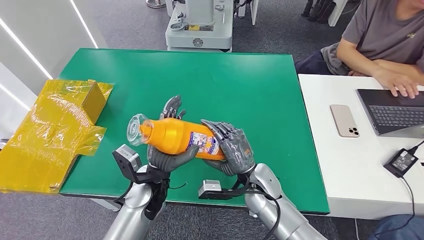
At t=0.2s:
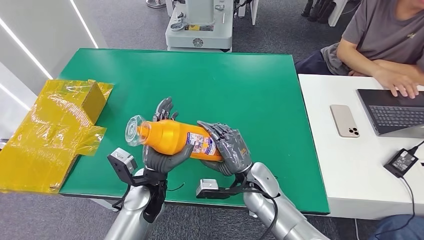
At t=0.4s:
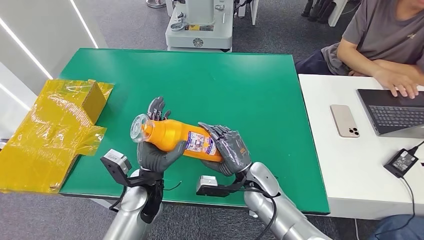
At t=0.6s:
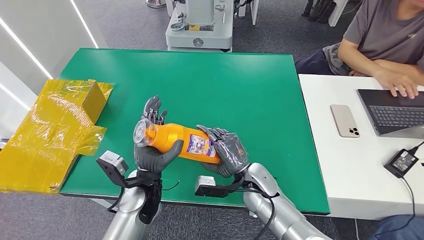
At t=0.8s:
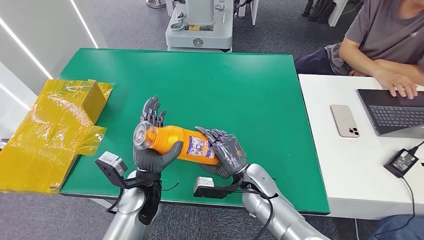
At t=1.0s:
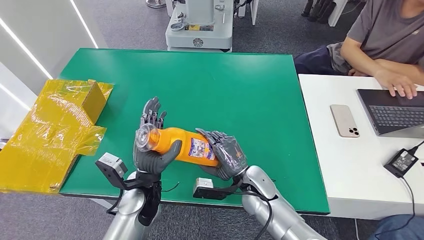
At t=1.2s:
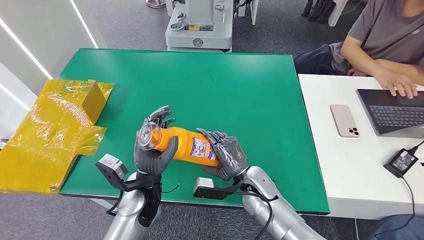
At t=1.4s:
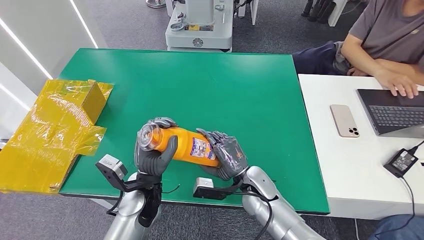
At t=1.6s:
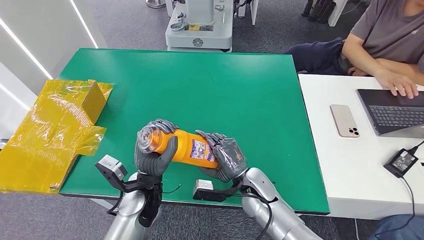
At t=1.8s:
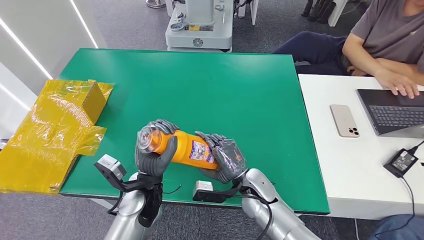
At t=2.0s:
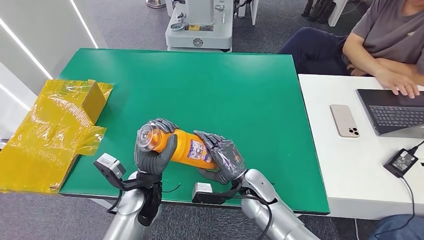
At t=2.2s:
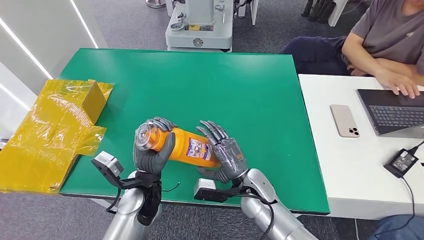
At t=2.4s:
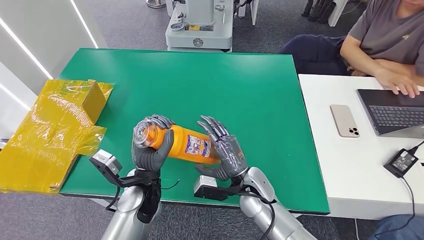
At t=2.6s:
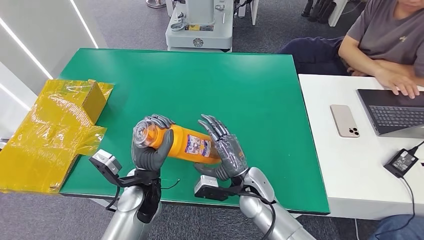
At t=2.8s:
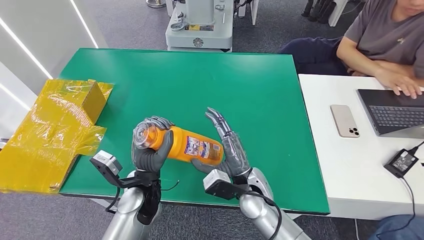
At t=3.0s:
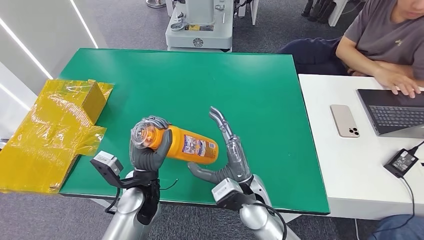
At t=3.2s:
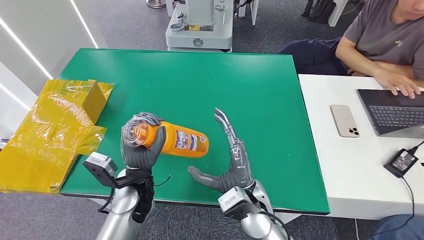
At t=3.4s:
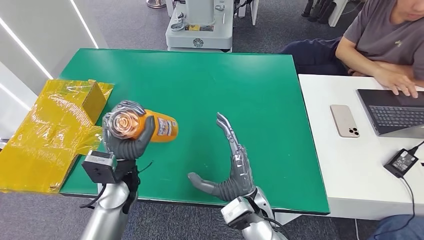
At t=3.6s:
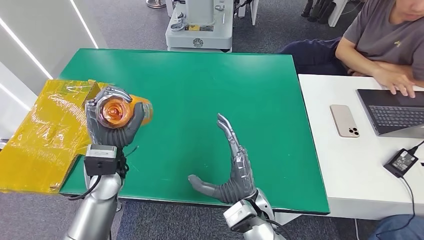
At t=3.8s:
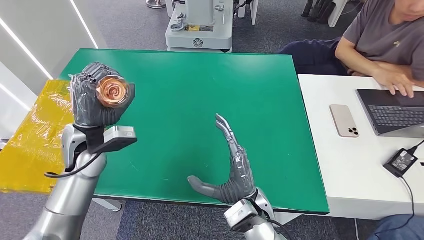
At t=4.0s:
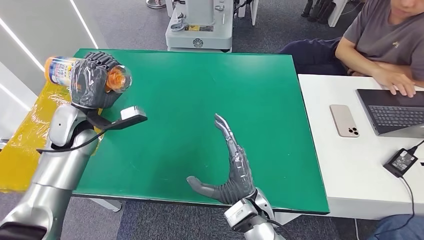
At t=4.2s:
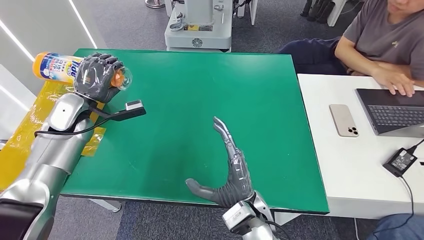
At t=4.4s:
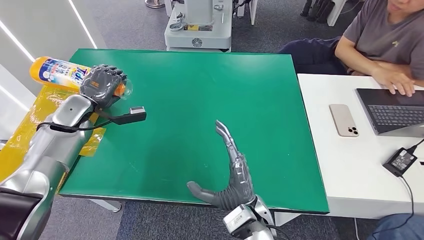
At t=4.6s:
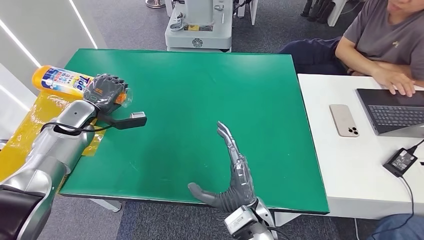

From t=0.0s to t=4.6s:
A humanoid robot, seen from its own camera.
Step, from t=0.0s to t=4.6s: Turn the bottle to the front side.
From t=0.0s to t=1.6s: There are only small adjustments of the hands.
From t=1.6s to t=3.0s: The right hand moves roughly 5 cm.
From t=3.0s to t=4.6s: The right hand heads backward, covering about 5 cm. Meanwhile the left hand goes about 30 cm to the left and forward.
